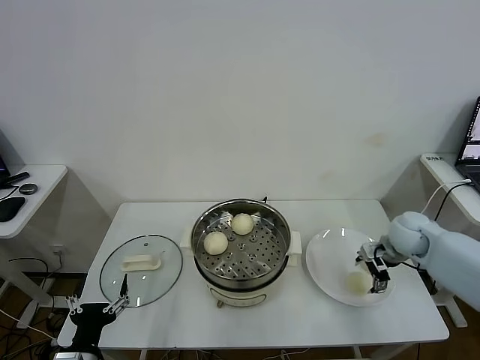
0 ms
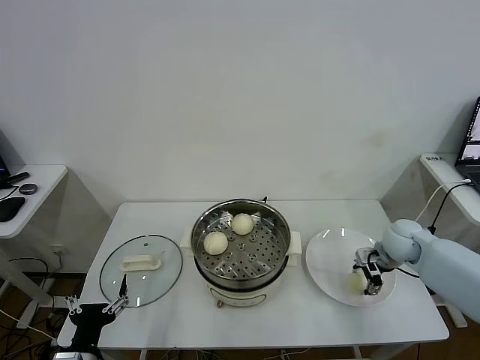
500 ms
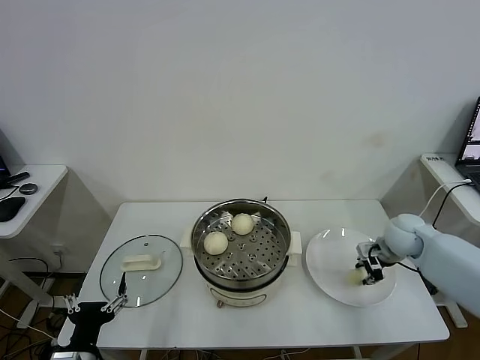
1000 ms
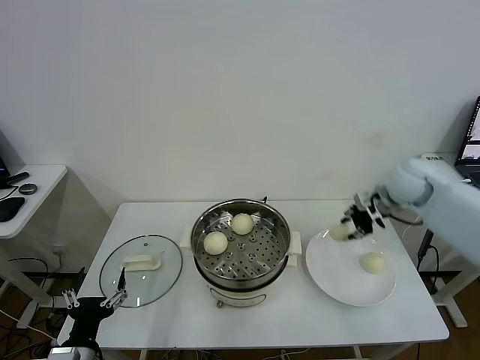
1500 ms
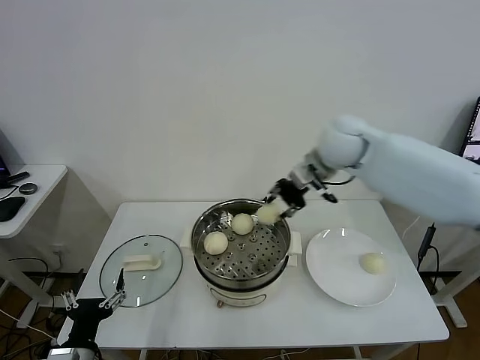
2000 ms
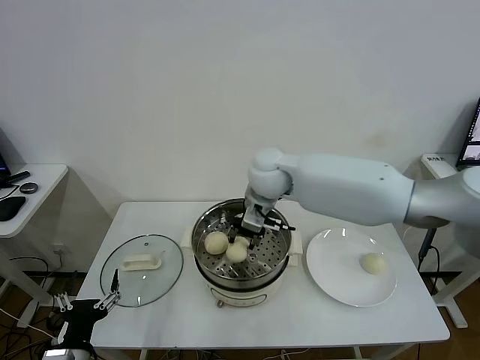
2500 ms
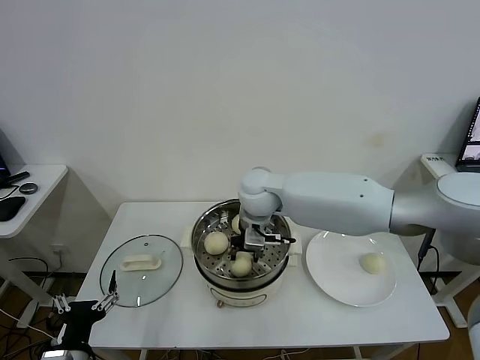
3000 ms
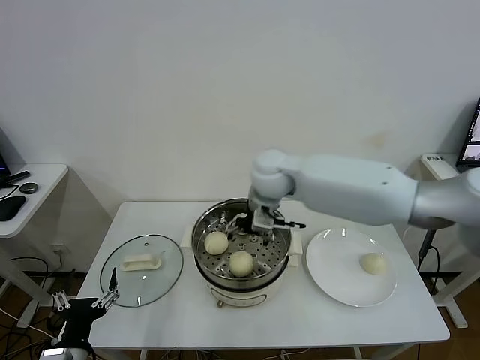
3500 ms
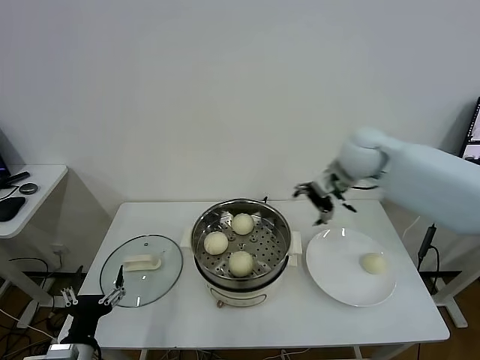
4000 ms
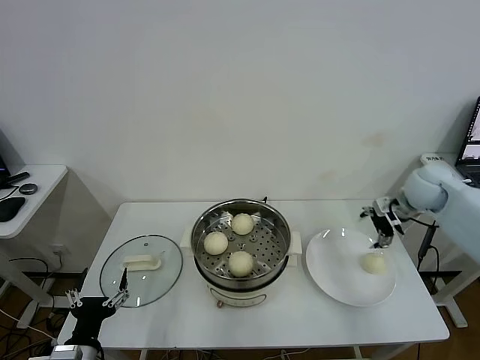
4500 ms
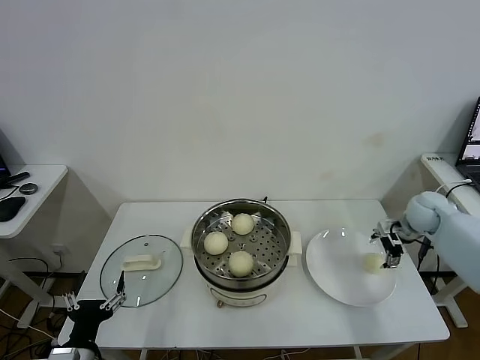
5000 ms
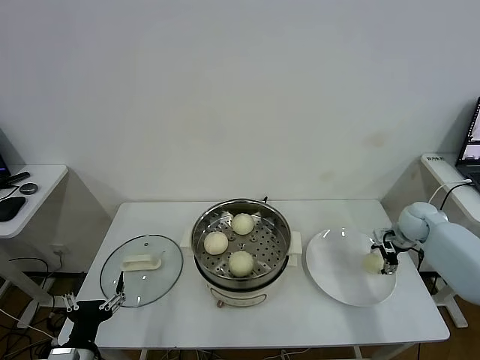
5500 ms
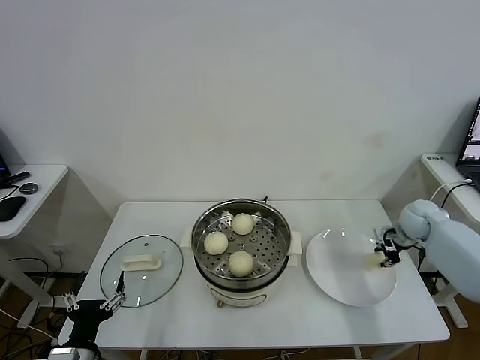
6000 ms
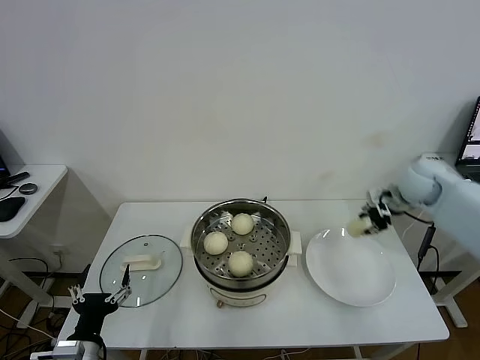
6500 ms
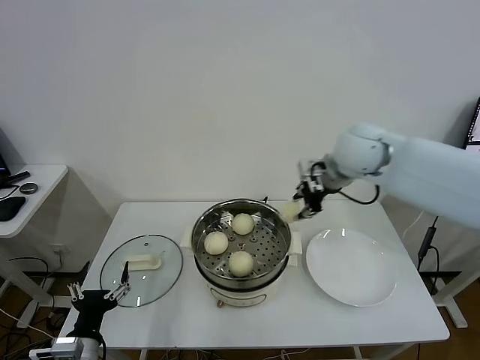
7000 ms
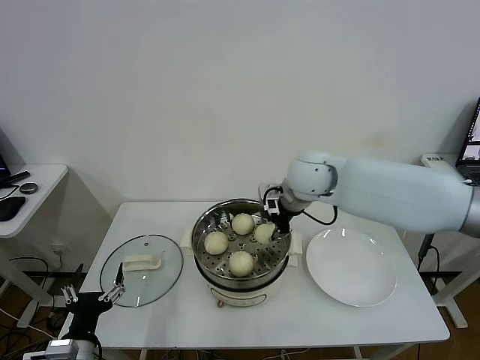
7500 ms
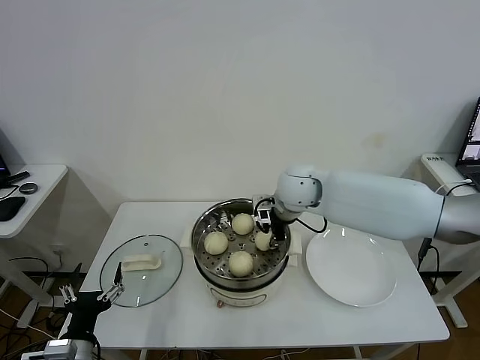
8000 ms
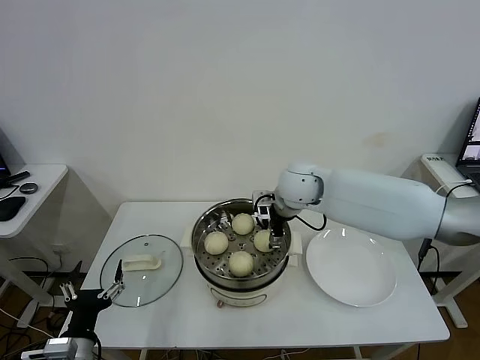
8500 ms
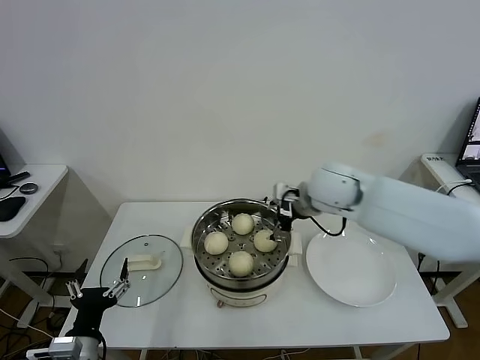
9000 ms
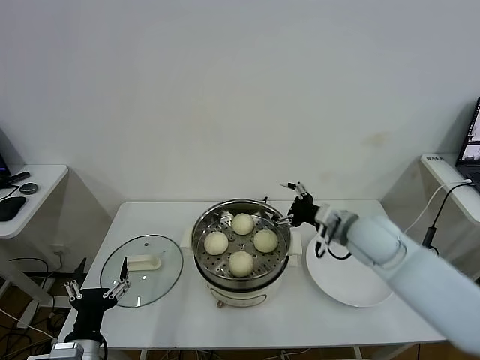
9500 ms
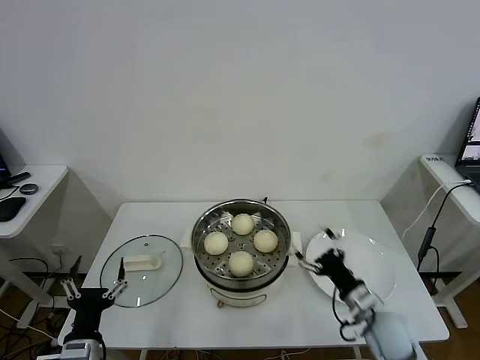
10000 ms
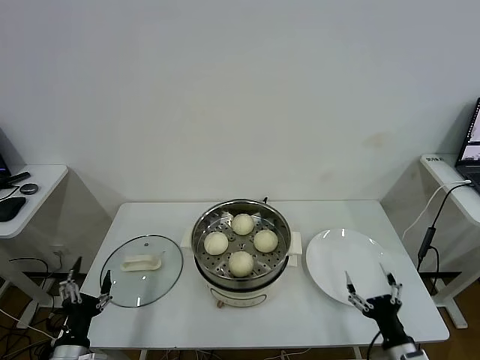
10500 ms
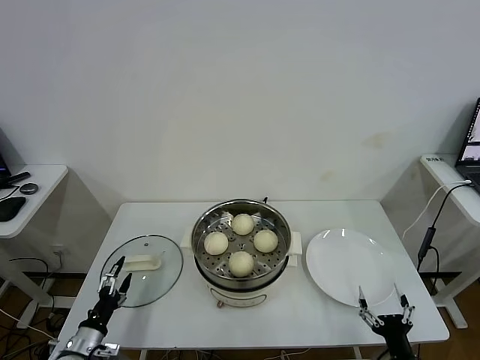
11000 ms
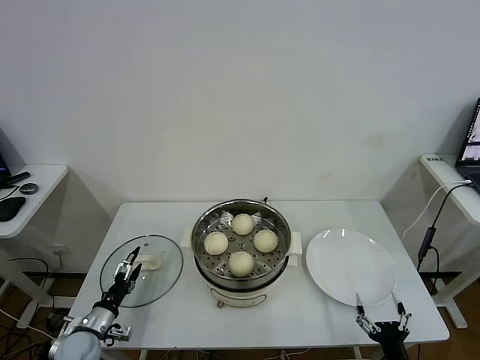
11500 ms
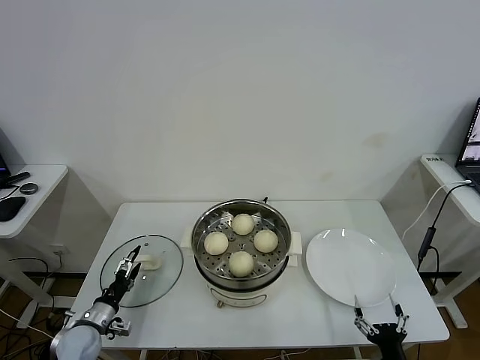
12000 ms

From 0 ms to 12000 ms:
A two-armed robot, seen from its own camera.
Task of the whole recording: take steamed baozi put them in steamer.
Step, from 1500 ms to 3500 ms: Place the baozi on the steamer with right gripper.
Step, from 4000 ms to 6000 ms: Grasp the baozi in the plate with right gripper.
Step, from 6500 ms to 8500 ms: Place the baozi on the steamer with right gripper.
From 0 ms to 2000 ms: The right gripper shifts approximately 30 cm upward and to the left, and closes.
From 2000 ms to 4000 ms: The right gripper goes to the left and returns, some 15 cm each way, and opens up.
From 4000 ms to 6000 ms: The right gripper is displaced to the right and downward by some 30 cm, and closes up.
From 6000 ms to 8000 ms: The right gripper moves to the left, approximately 35 cm.
From 8000 ms to 10000 ms: The right gripper goes about 35 cm backward, downward and to the right, and opens up.
From 10000 ms to 12000 ms: The right gripper moves backward and downward, roughly 20 cm. The left gripper travels forward, downward and to the left by some 20 cm.

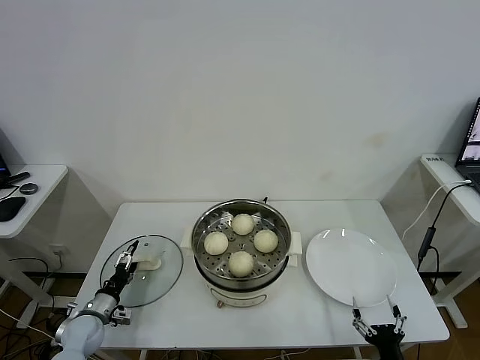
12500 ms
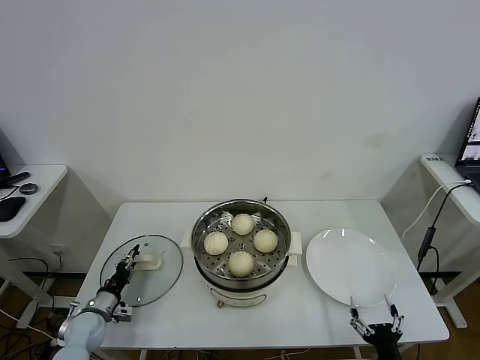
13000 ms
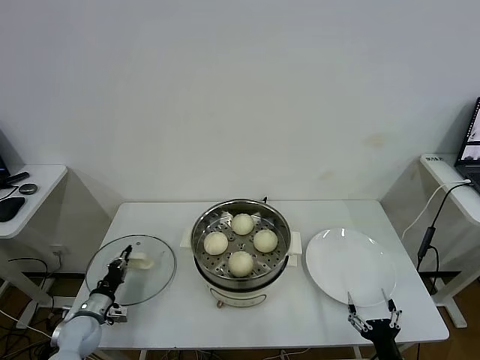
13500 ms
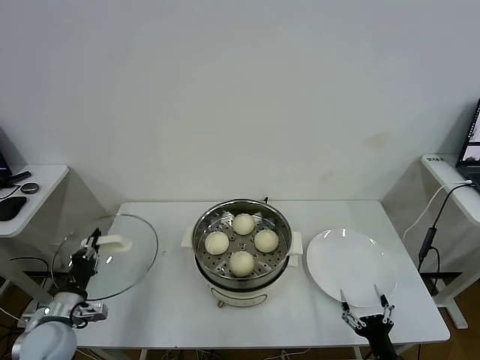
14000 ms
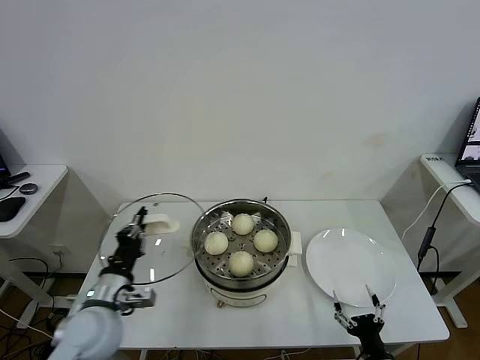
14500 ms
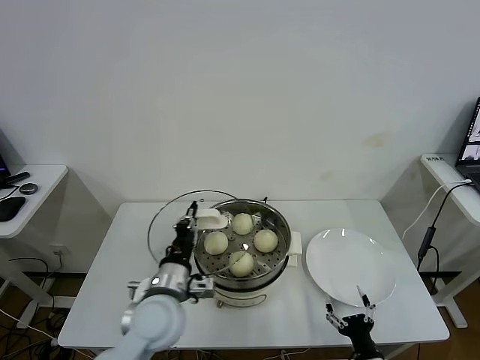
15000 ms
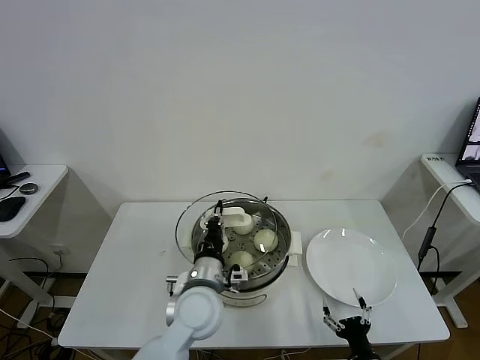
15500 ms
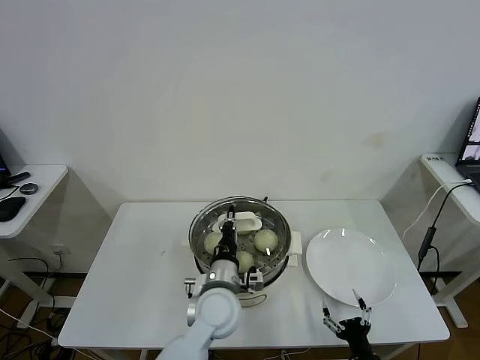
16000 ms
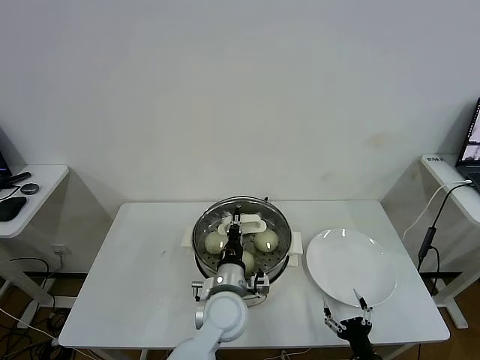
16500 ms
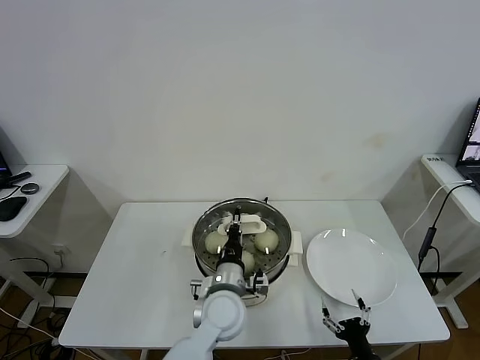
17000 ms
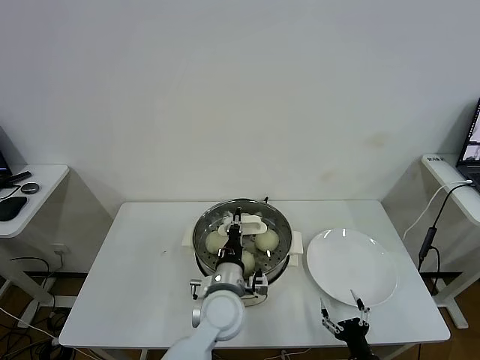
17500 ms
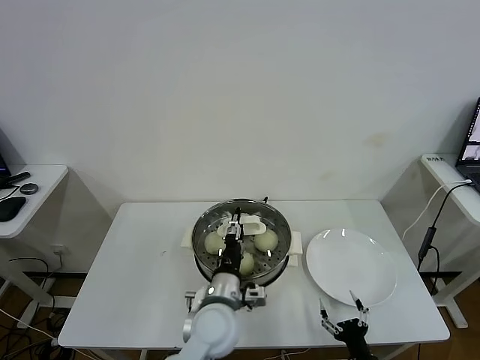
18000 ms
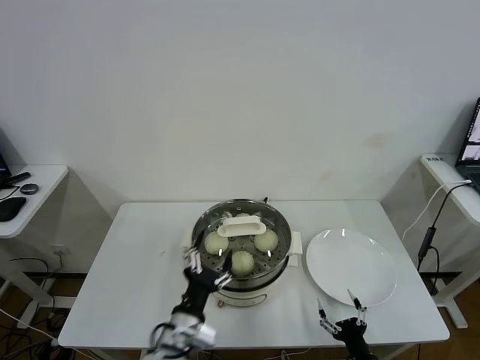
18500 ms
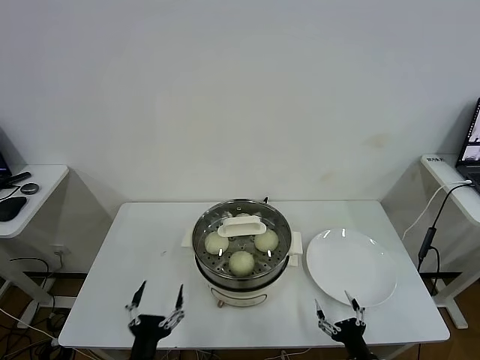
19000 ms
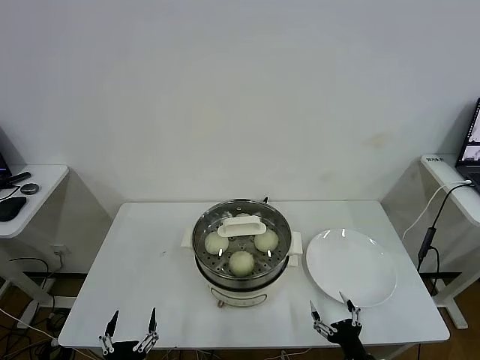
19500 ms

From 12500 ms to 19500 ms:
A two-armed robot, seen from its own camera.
Task of the whole recording: take steamed baozi put them in steamer.
Step, from 14000 ms to 18000 ms: Place the pot lid on the steamer with left gripper.
From 12500 ms to 14500 ms: The left gripper travels upward and to the right by roughly 25 cm, and closes up.
From 14500 ms to 16000 ms: The left gripper moves to the right, approximately 25 cm.
From 16000 ms to 17500 ms: The grippers move only a little.
From 17500 ms to 19500 ms: The left gripper heads backward, to the left and downward, covering about 35 cm, and opens up.
